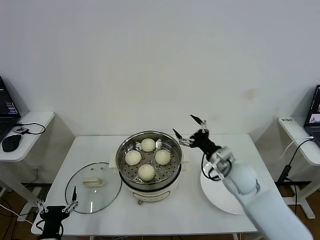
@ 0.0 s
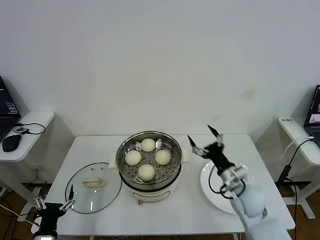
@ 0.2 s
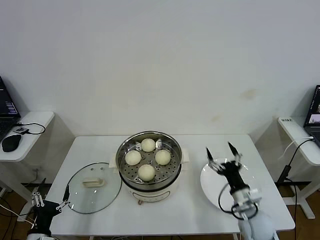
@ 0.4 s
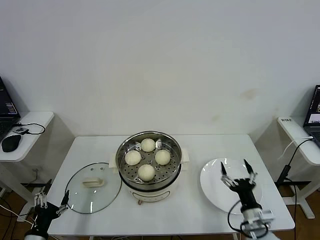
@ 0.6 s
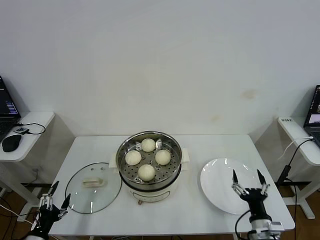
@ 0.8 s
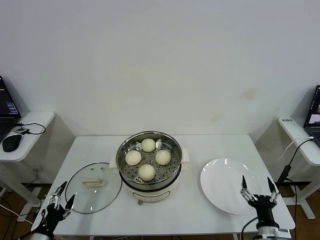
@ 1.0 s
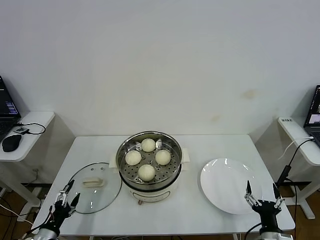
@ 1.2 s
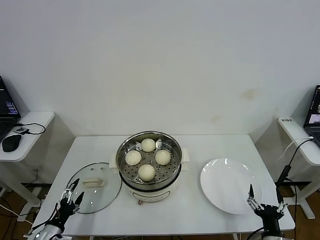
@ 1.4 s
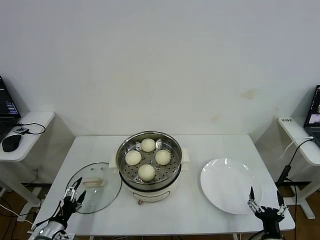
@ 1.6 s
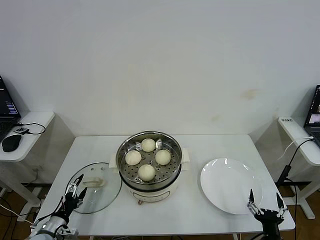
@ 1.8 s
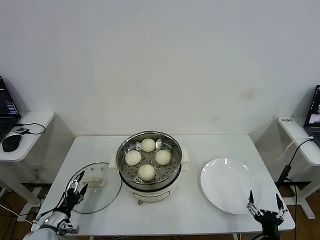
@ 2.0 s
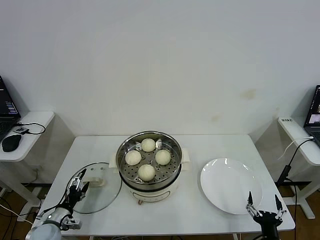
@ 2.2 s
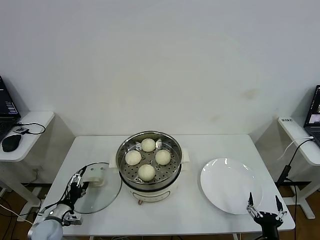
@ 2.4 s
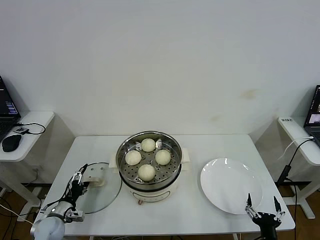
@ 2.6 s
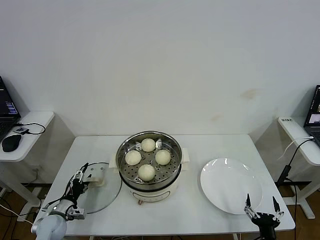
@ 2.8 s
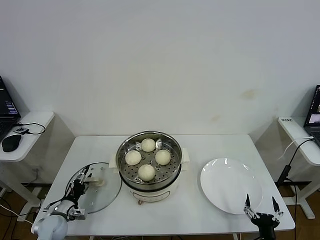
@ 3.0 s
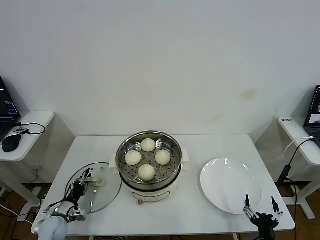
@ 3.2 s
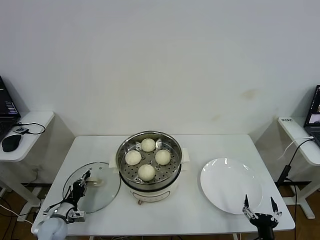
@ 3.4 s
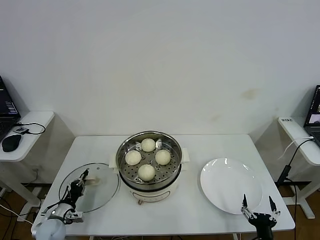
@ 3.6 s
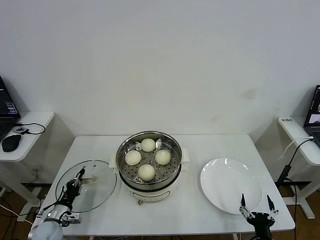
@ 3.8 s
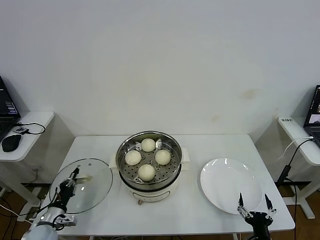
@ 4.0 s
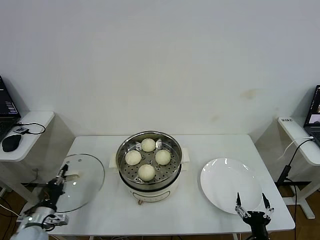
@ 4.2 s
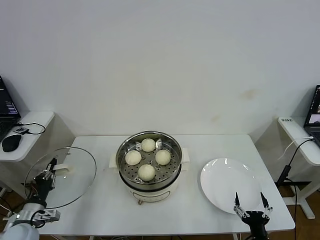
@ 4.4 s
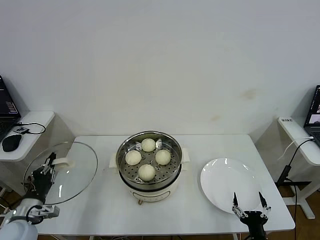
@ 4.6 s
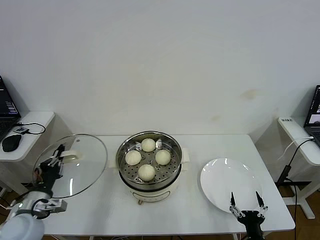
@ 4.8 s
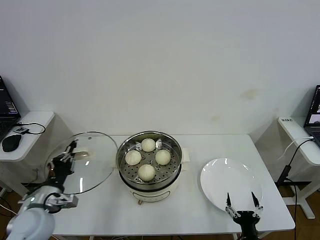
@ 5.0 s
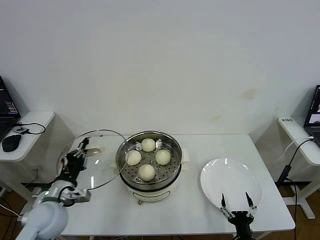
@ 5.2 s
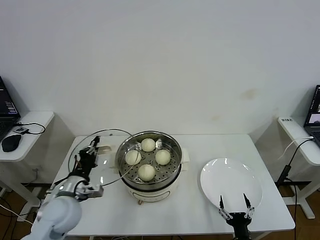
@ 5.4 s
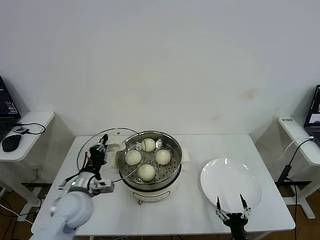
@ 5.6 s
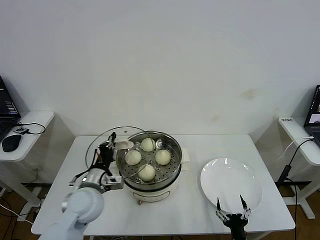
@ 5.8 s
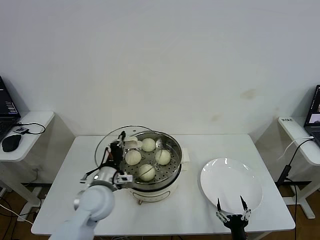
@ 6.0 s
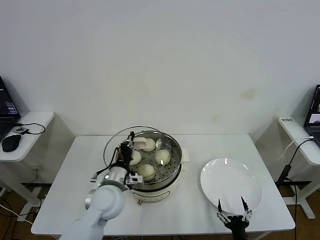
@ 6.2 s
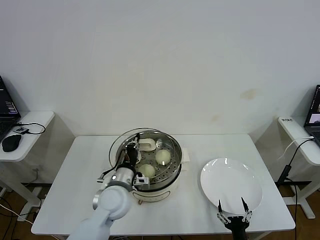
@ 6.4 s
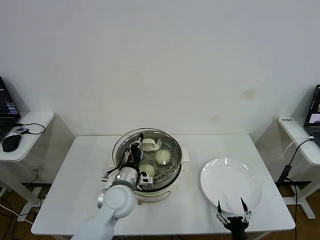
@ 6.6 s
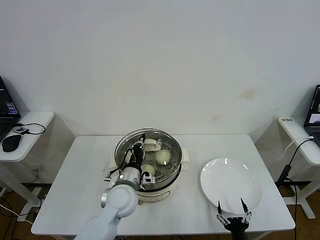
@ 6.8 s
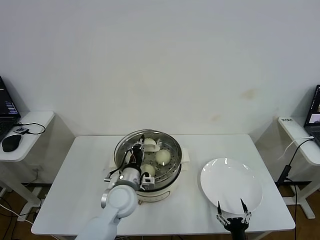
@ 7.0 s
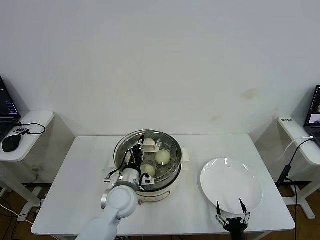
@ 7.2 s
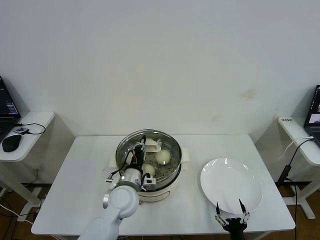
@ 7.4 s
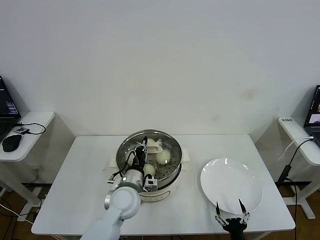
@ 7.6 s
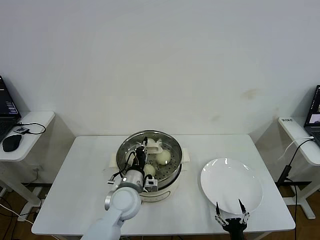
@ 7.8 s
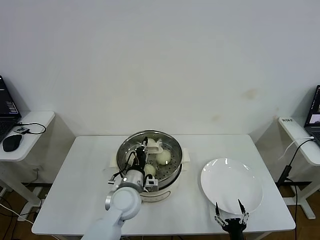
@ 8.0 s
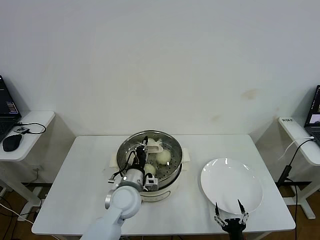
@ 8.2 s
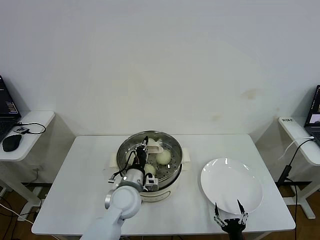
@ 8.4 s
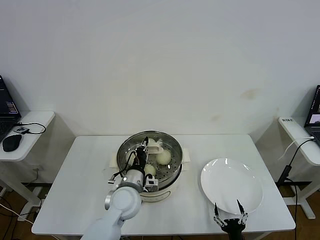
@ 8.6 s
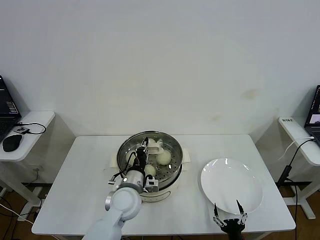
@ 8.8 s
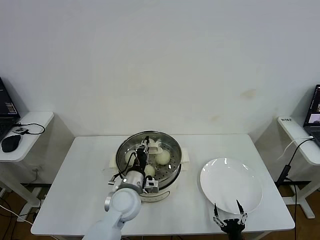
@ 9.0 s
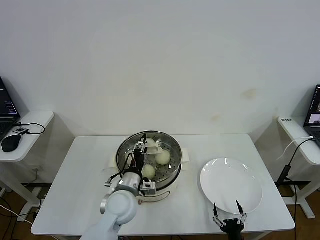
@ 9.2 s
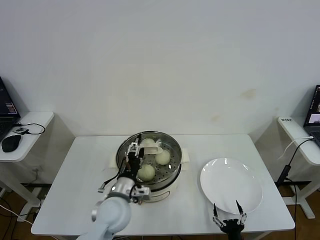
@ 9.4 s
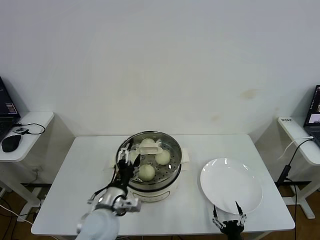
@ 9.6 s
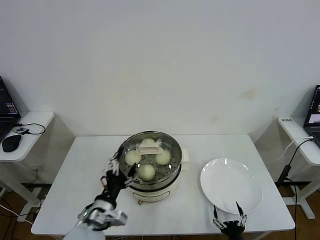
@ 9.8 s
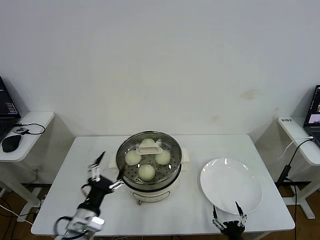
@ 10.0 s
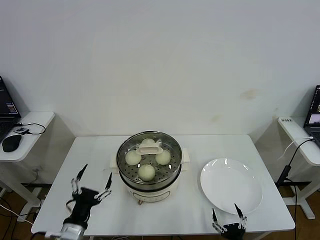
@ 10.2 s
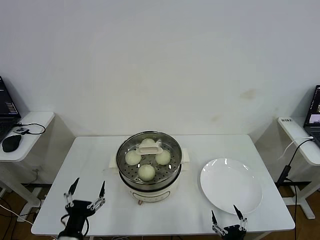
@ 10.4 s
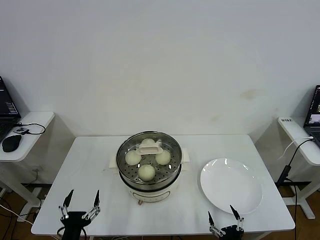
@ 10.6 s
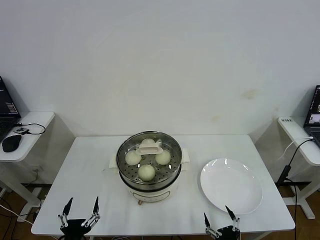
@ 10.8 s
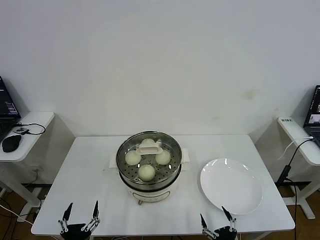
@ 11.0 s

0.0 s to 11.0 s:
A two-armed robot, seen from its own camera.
Step, 0.0 to 3.6 s: Grasp the pot lid with left gripper.
Step, 3.8 to 9.4 s: Place the pot lid on the steamer with left gripper.
0.0 to 1.6 s: The right gripper shifts some 30 cm backward and downward; the left gripper heads to the left and forward, covering some 10 cm.
1.6 to 3.2 s: The left gripper is displaced forward by about 10 cm, and closes up.
3.2 to 4.8 s: The left gripper heads upward, covering about 20 cm, and closes.
4.8 to 6.2 s: The left gripper moves to the right, roughly 20 cm, while the right gripper changes place by approximately 5 cm.
6.2 to 7.8 s: The left gripper moves to the right, approximately 5 cm.
7.8 to 9.4 s: The left gripper opens up.
9.4 to 11.0 s: The left gripper moves backward and to the left, approximately 25 cm, while the right gripper travels upward by about 5 cm.
